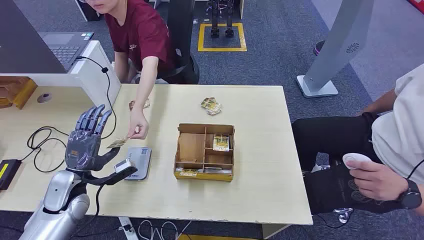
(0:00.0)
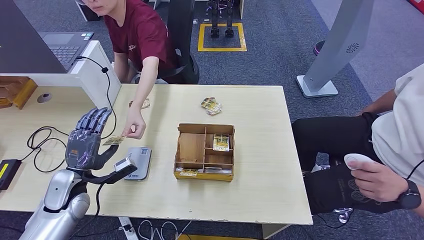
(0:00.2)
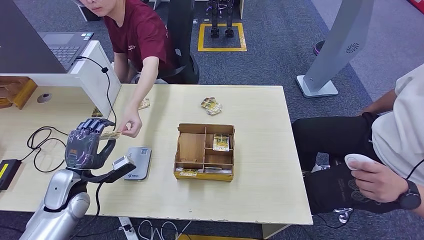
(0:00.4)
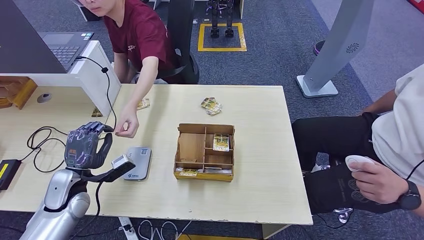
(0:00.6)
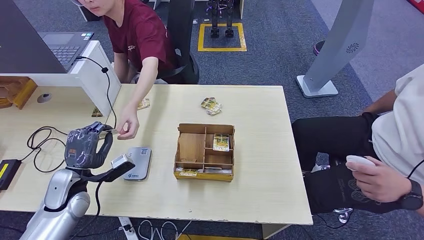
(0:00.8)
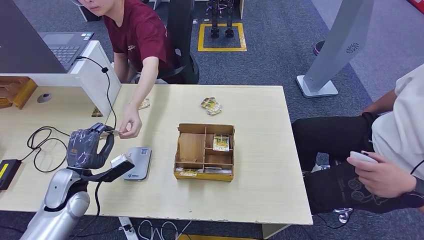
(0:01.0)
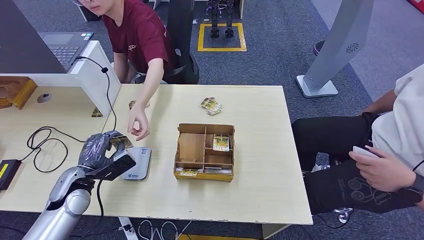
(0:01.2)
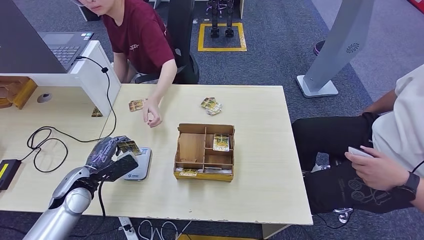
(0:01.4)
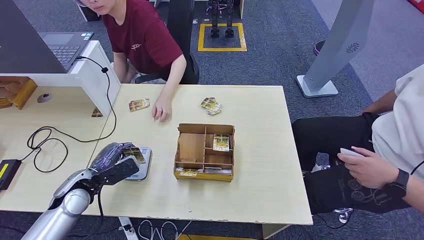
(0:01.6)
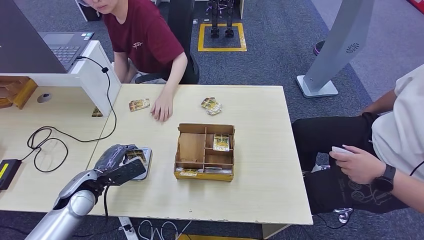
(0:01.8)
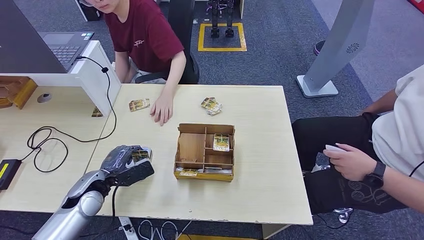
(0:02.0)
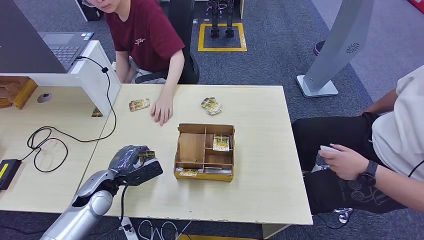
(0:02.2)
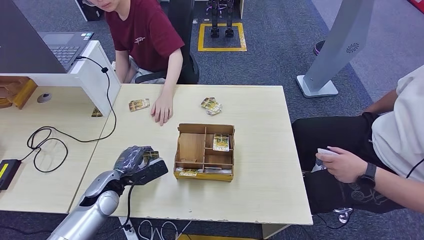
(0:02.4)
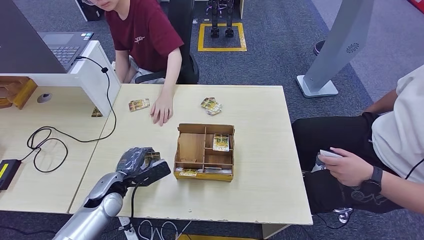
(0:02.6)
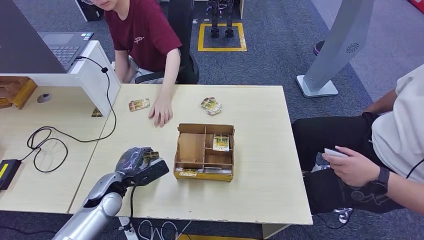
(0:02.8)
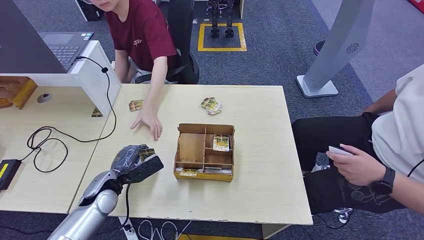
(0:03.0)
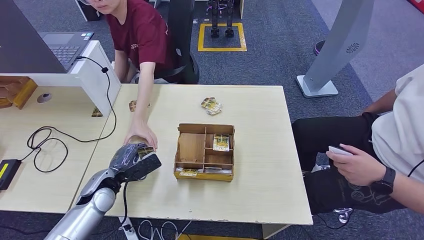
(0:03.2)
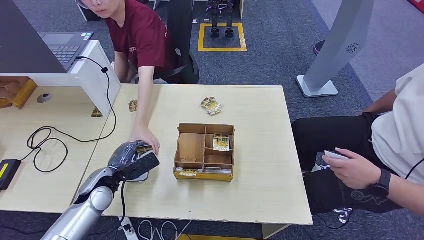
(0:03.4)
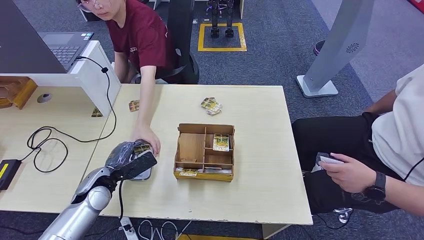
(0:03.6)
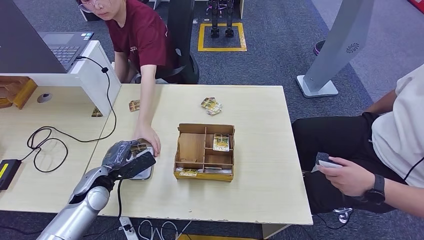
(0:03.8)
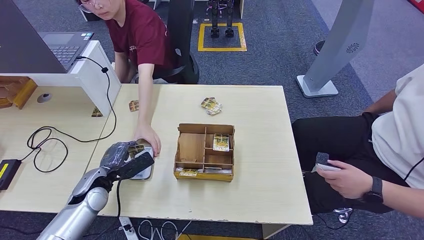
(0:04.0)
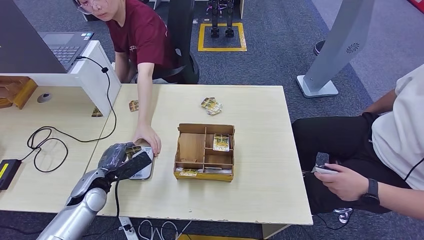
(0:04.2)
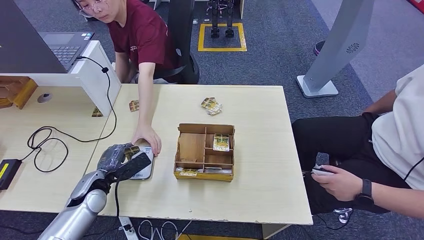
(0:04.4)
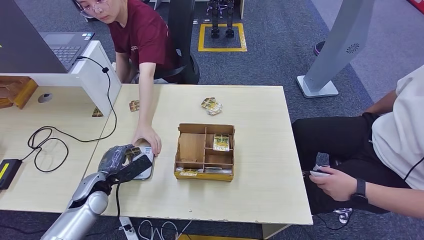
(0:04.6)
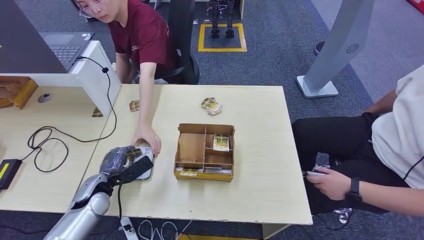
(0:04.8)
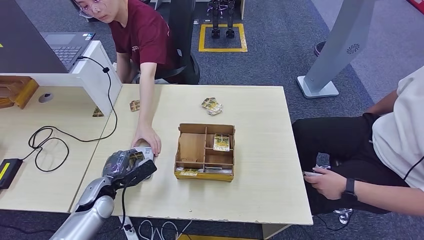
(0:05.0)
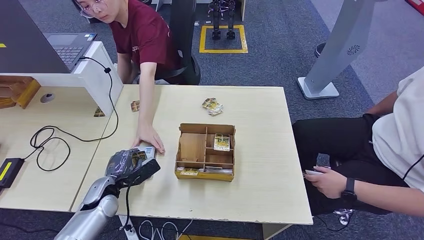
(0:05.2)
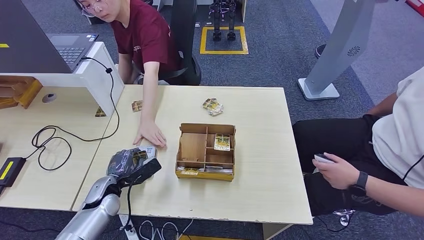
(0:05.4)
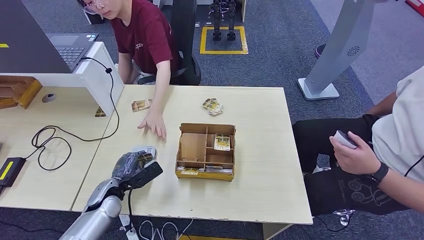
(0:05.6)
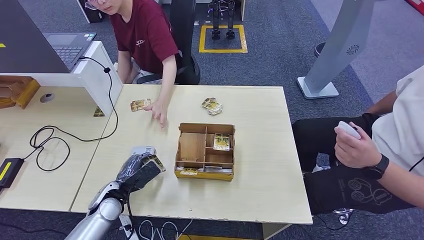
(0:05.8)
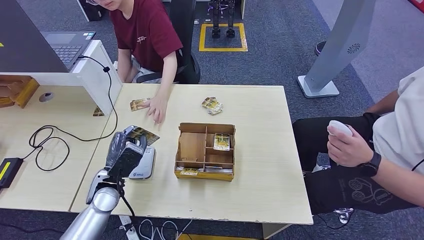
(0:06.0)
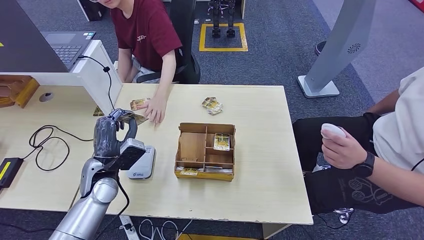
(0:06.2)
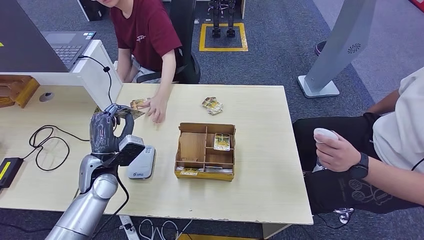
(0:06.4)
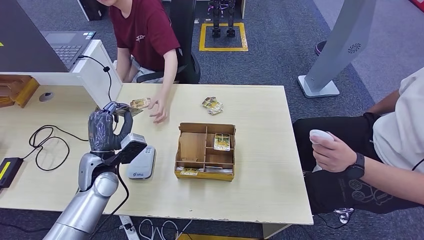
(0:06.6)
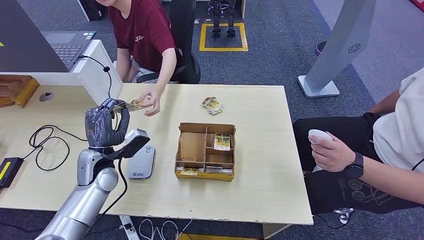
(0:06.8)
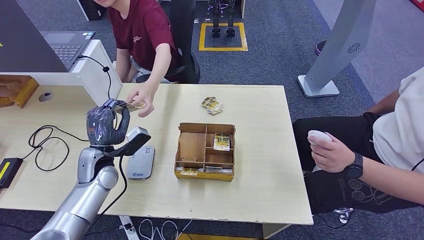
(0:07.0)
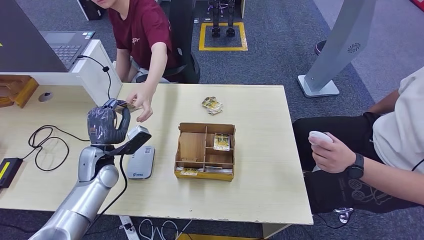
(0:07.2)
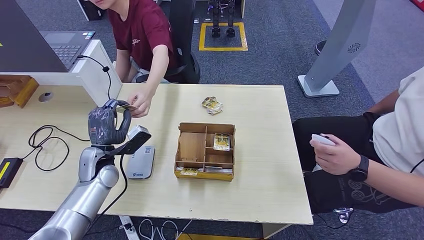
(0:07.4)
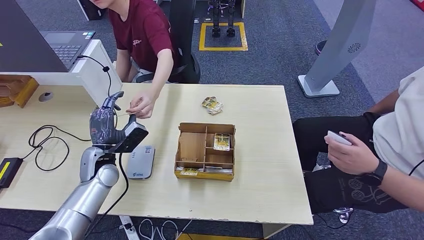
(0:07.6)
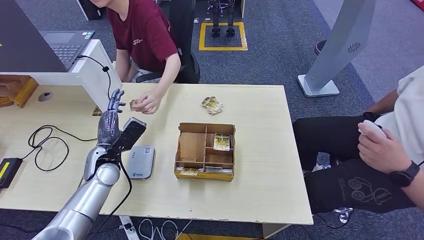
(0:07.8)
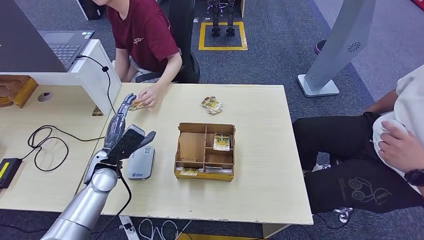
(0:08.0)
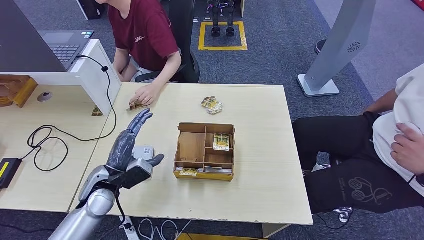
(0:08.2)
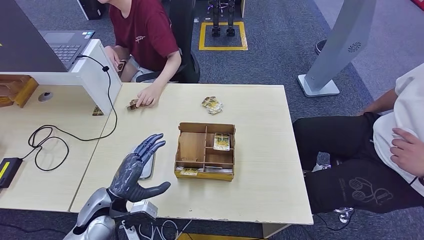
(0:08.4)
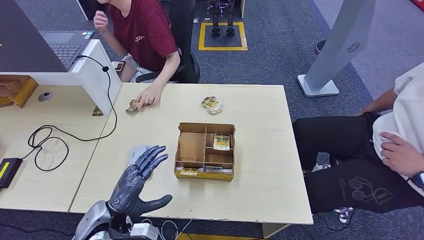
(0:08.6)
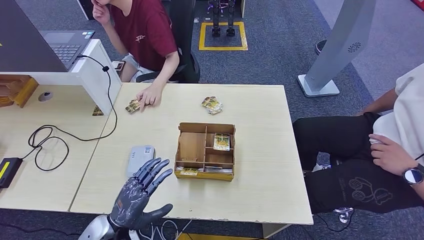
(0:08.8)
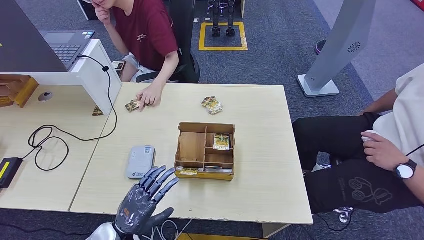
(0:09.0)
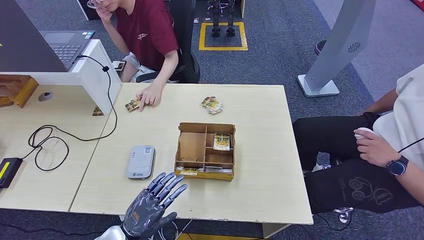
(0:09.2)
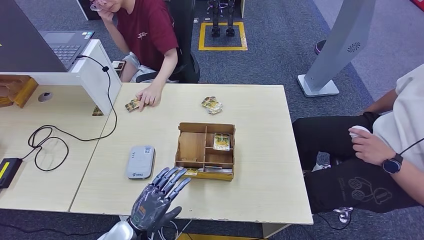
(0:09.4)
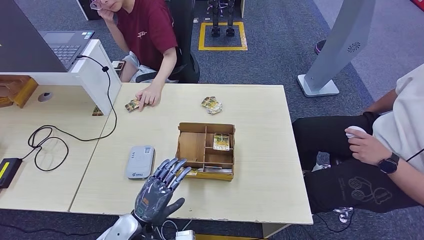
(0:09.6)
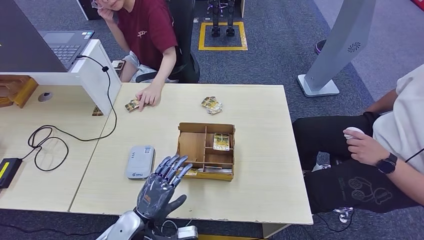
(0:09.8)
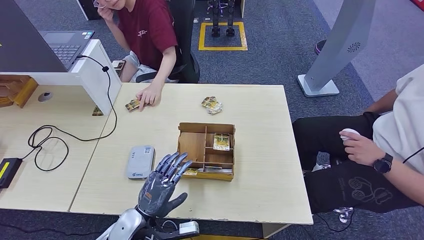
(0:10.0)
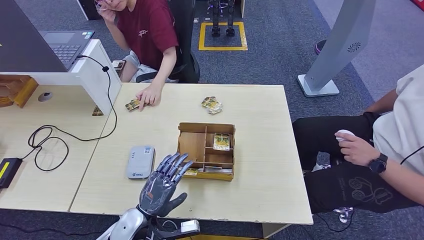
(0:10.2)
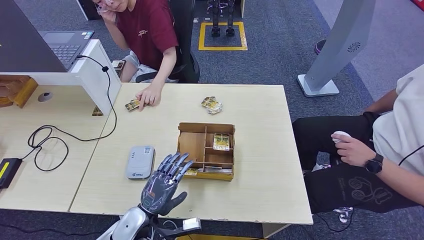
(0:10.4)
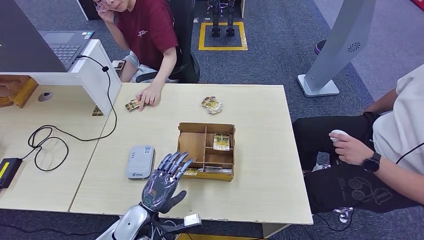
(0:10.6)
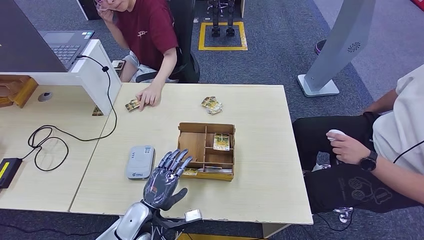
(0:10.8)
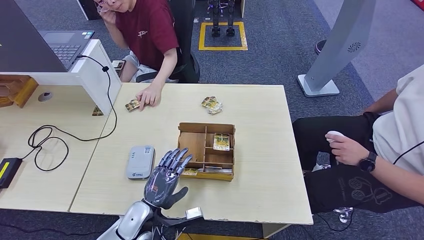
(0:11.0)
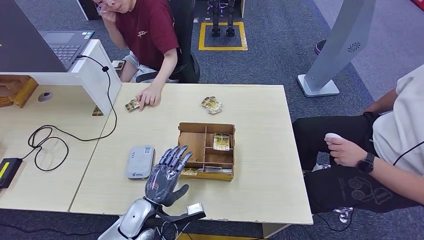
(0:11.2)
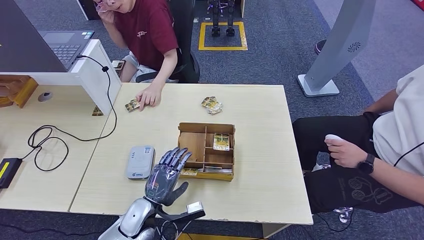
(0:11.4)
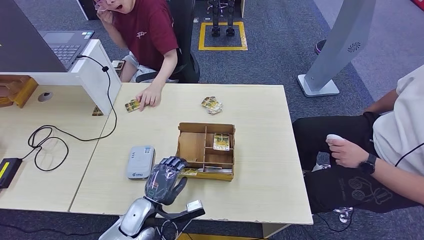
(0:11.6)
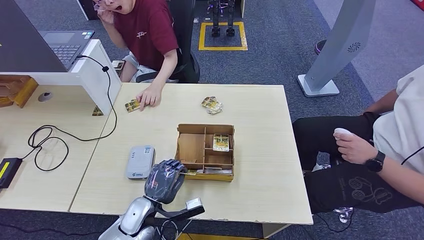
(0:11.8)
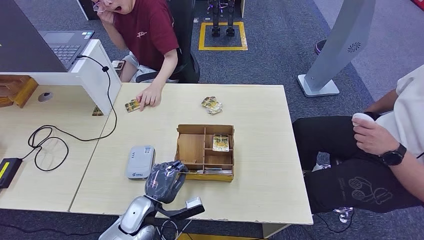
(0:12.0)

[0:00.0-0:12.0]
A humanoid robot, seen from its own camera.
Step, 0:00.0 to 0:01.2: Take the ID card from the person's hand.
Step, 0:01.4 to 0:05.2: Place the ID card on the card reader.
Step, 0:05.4 to 0:08.0: Hand the ID card to the person.
0:01.6 to 0:03.0: The left hand travels to the right by roughly 5 cm.
0:03.0 to 0:04.4: There are only small adjustments of the hands.
0:04.4 to 0:06.0: The left hand shifts by about 5 cm.
0:06.0 to 0:07.6: The left hand heads forward, covering roughly 5 cm.
0:07.6 to 0:09.0: The left hand travels backward by some 15 cm.
0:09.0 to 0:10.4: The left hand heads to the right, covering roughly 5 cm.
0:10.4 to 0:12.0: The hands move only a little.

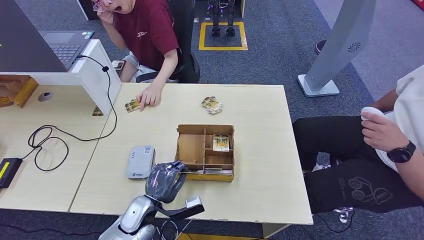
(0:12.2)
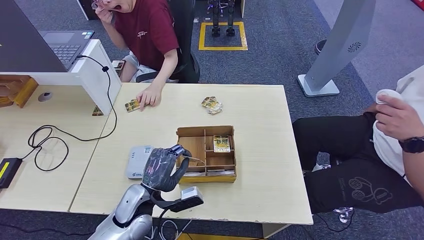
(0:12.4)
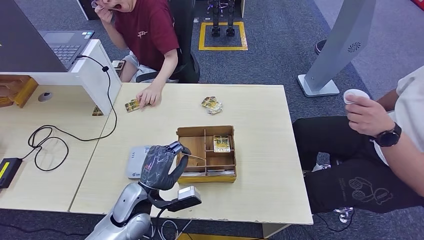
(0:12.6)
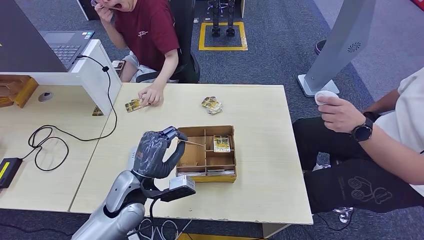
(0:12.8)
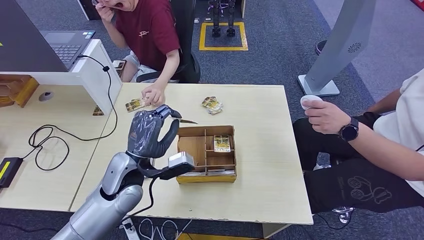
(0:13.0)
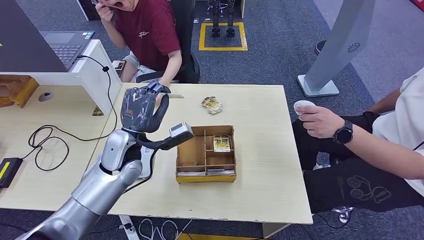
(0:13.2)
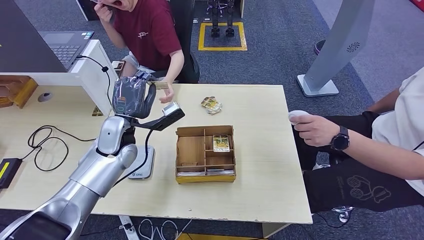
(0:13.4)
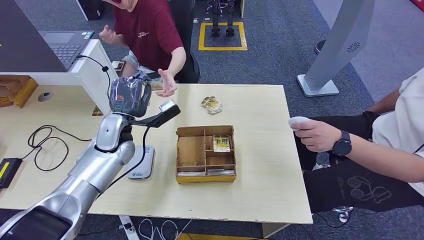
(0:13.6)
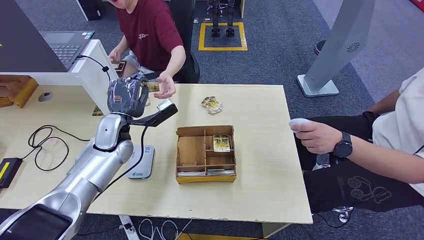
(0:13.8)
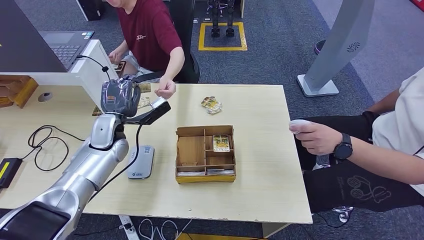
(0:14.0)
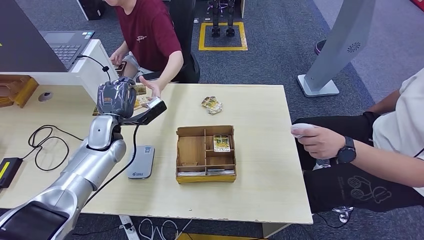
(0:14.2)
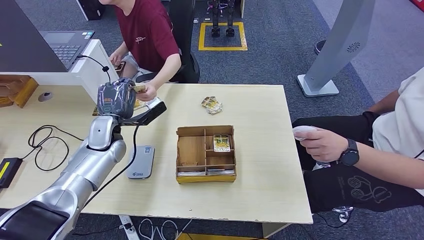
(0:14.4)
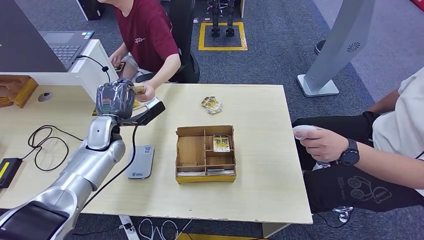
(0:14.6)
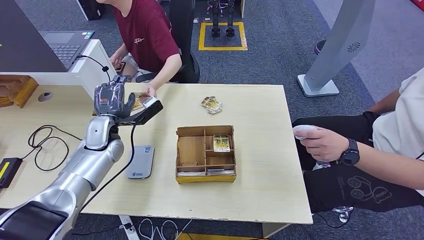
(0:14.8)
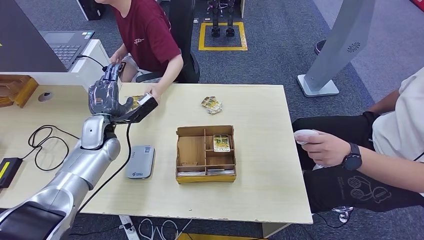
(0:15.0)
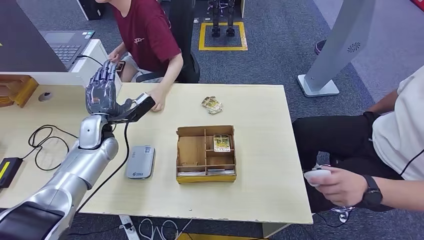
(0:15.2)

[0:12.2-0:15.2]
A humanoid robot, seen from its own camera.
Step, 0:13.2 to 0:15.0: Hand the room key to the person.
0:12.2 to 0:13.8: The left hand moves upward and forward, roughly 25 cm.
0:13.8 to 0:15.2: The left hand goes approximately 5 cm to the left.

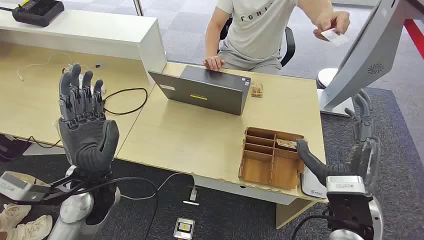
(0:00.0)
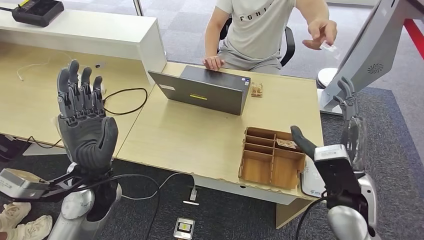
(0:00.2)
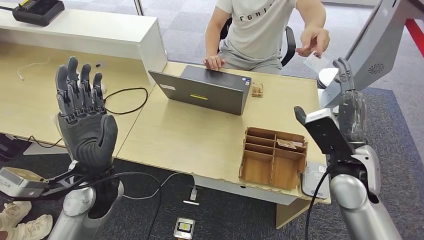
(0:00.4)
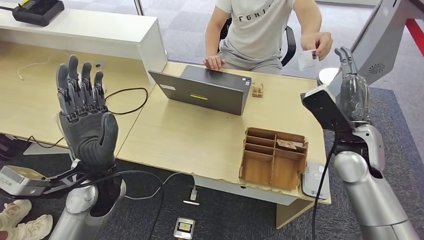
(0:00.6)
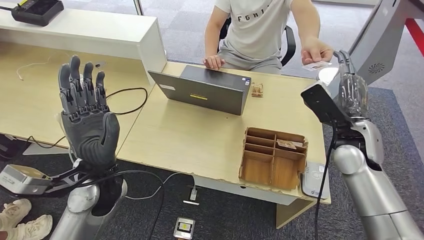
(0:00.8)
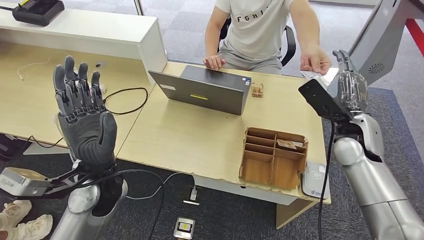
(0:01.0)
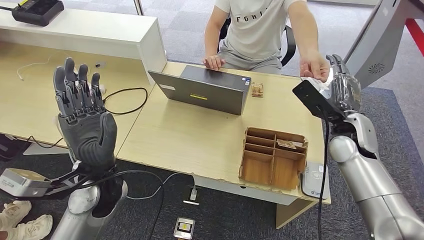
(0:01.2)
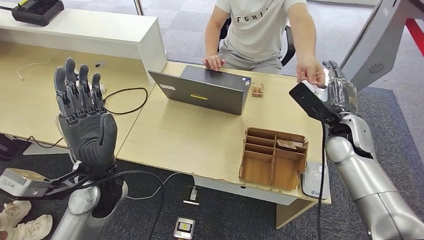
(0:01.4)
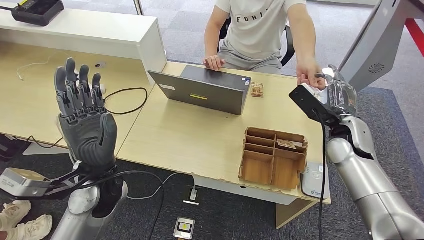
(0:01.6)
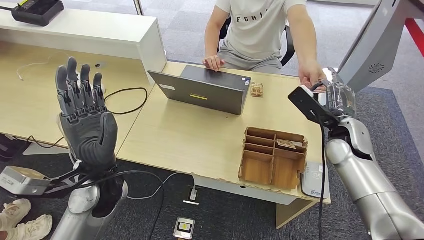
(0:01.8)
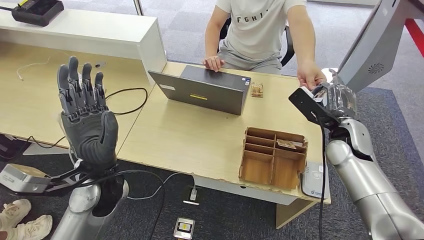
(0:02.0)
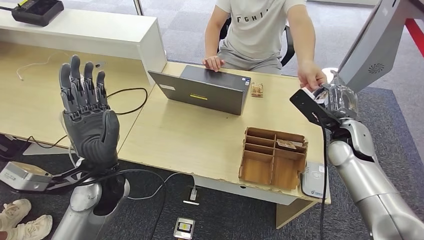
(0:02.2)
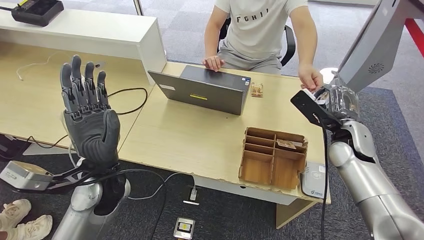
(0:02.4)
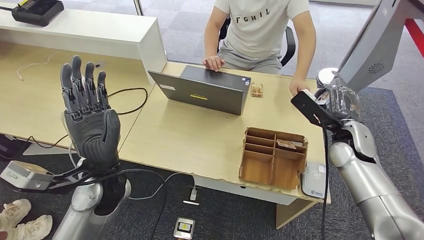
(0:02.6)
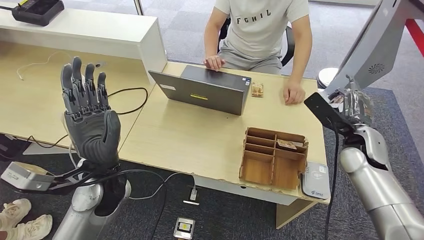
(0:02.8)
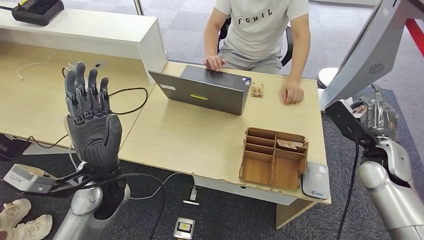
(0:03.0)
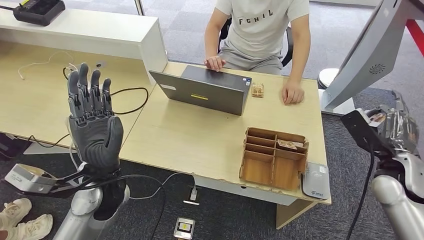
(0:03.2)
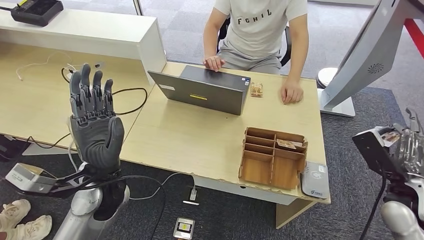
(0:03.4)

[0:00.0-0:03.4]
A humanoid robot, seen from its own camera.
Step, 0:00.0 to 0:02.8: Take the ID card from the person's hand.
0:01.6 to 0:03.4: The right hand goes approximately 15 cm to the right and backward.
